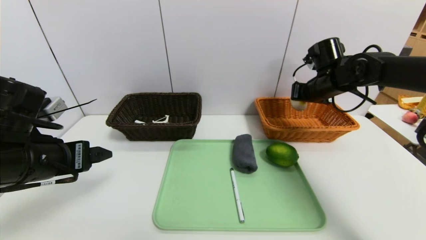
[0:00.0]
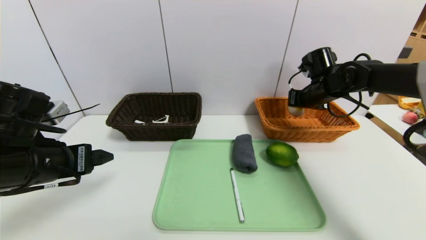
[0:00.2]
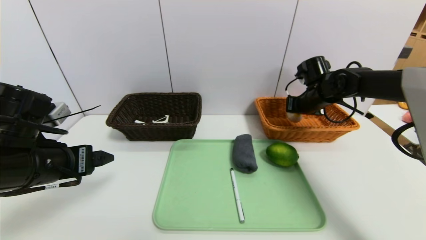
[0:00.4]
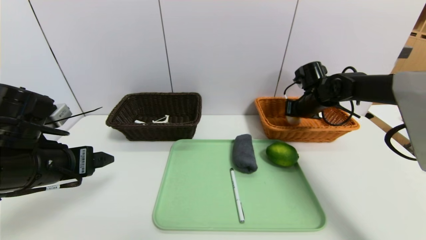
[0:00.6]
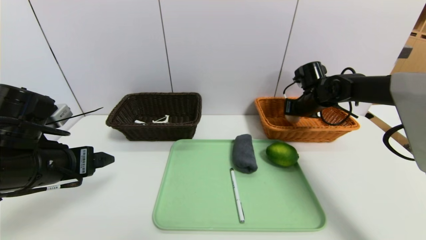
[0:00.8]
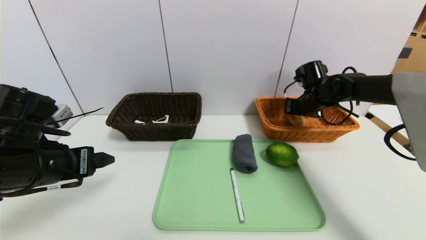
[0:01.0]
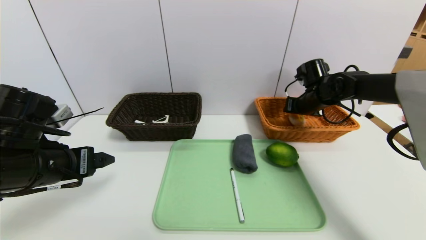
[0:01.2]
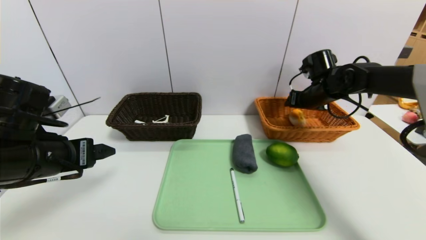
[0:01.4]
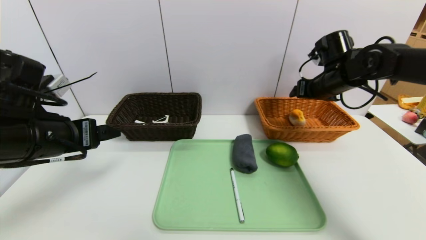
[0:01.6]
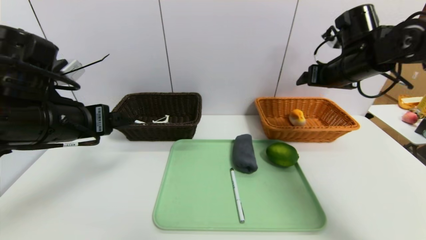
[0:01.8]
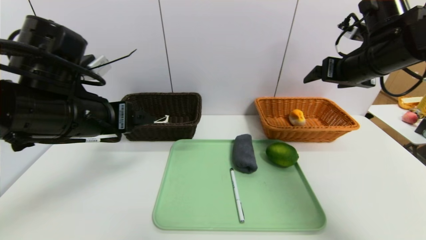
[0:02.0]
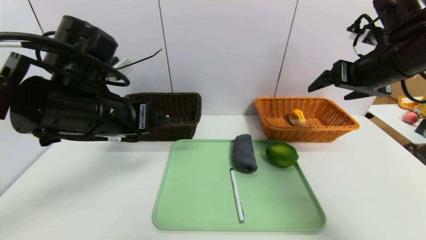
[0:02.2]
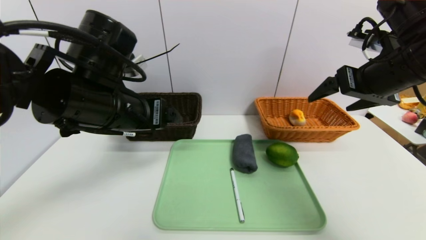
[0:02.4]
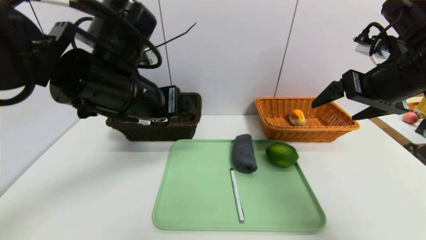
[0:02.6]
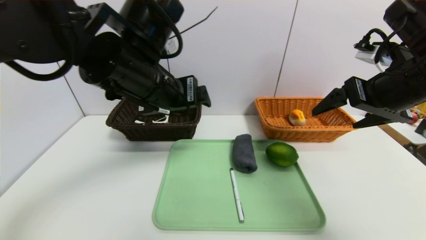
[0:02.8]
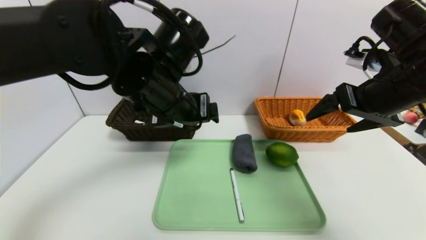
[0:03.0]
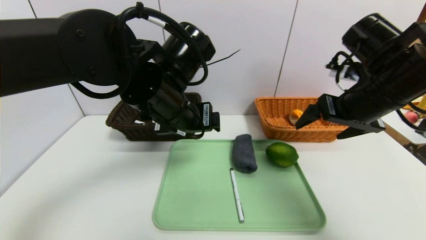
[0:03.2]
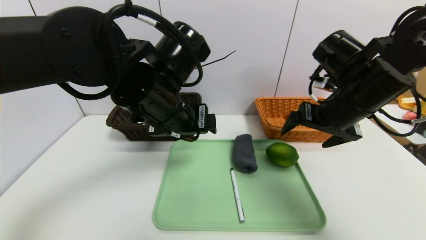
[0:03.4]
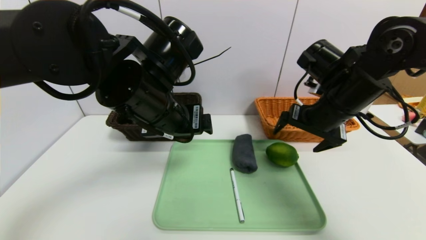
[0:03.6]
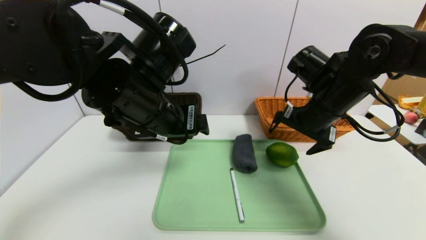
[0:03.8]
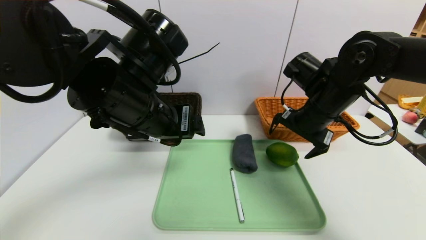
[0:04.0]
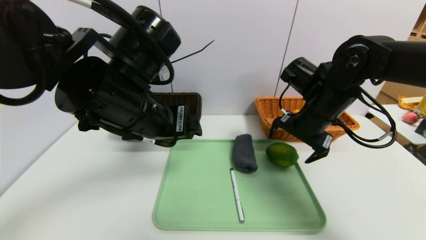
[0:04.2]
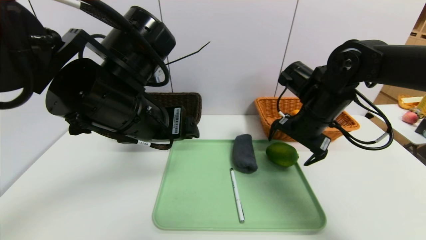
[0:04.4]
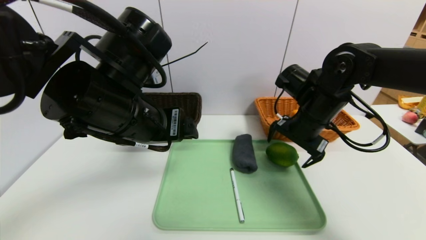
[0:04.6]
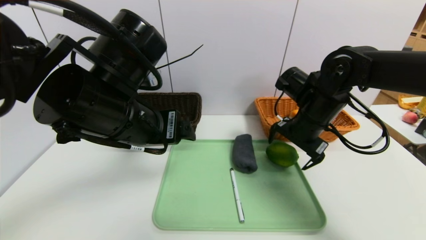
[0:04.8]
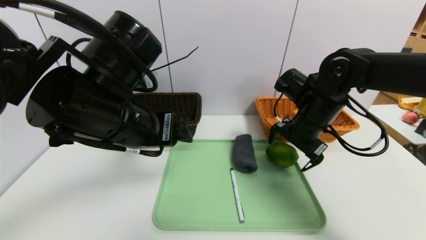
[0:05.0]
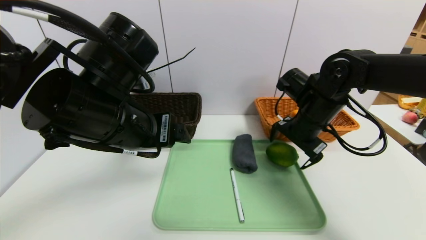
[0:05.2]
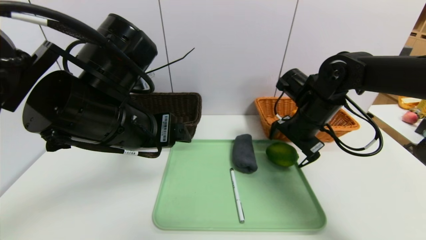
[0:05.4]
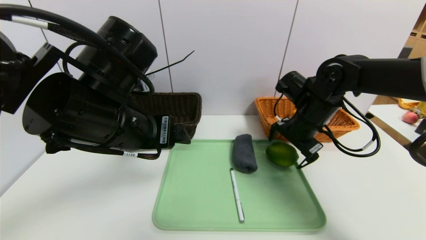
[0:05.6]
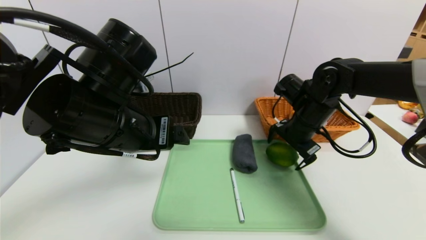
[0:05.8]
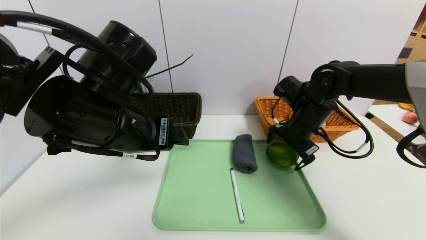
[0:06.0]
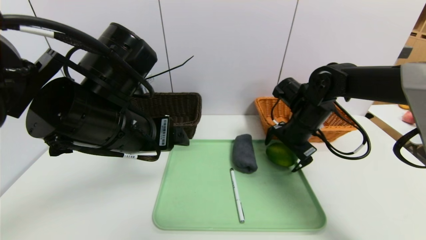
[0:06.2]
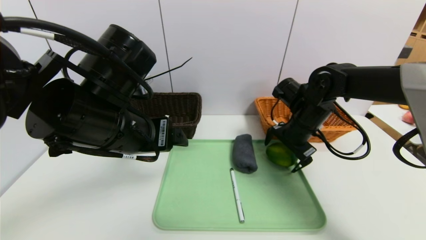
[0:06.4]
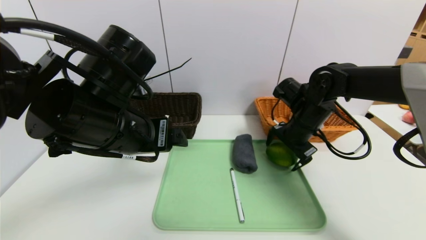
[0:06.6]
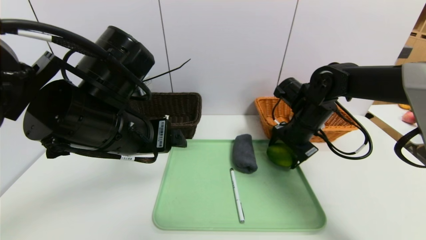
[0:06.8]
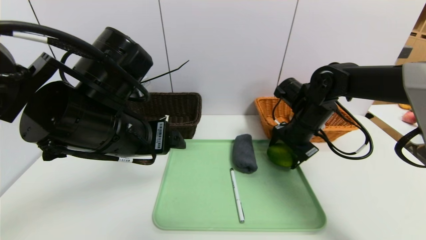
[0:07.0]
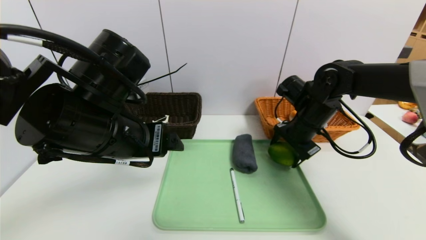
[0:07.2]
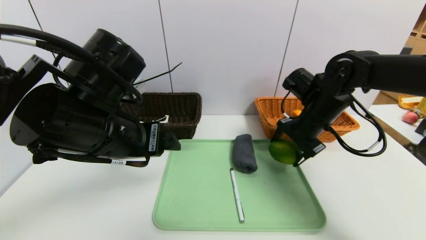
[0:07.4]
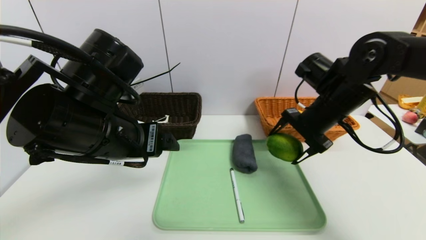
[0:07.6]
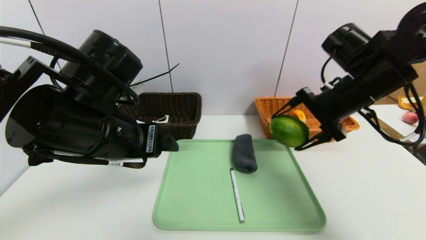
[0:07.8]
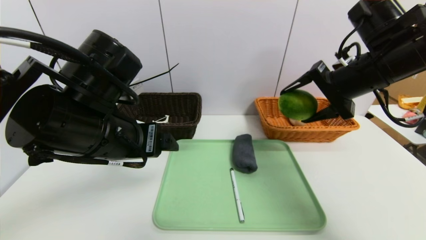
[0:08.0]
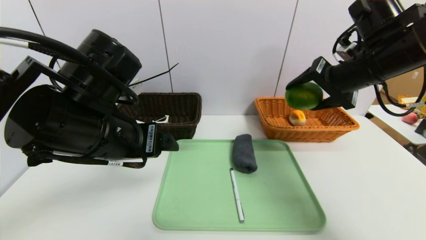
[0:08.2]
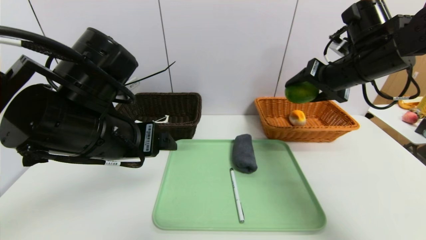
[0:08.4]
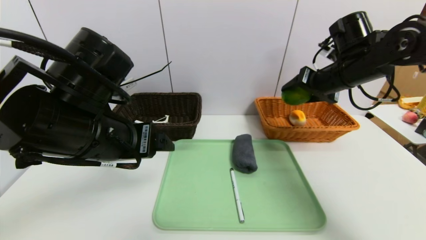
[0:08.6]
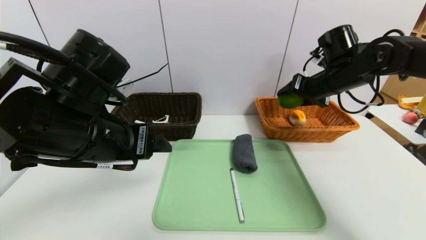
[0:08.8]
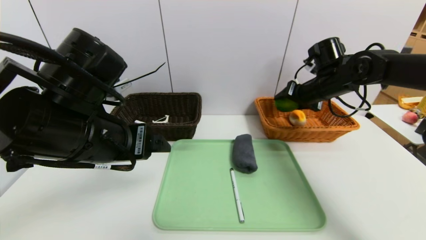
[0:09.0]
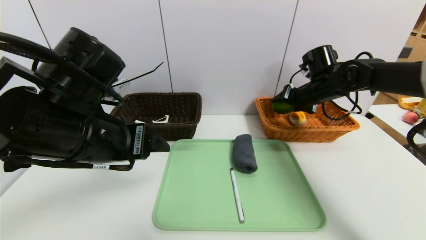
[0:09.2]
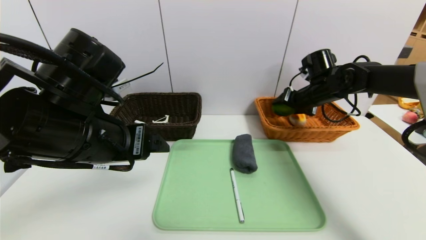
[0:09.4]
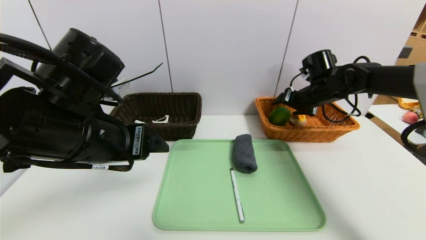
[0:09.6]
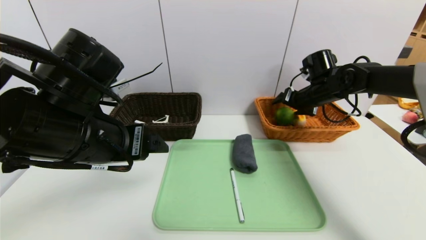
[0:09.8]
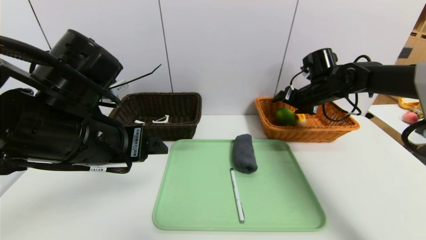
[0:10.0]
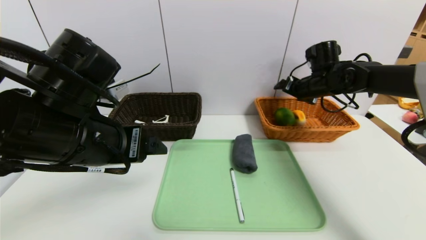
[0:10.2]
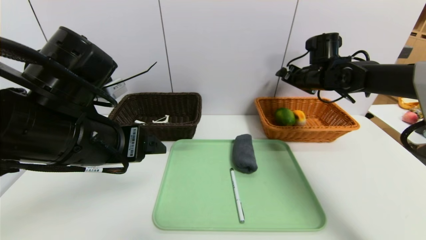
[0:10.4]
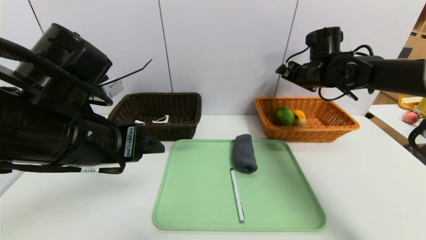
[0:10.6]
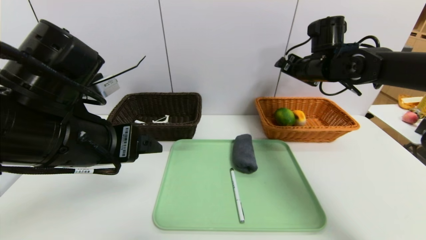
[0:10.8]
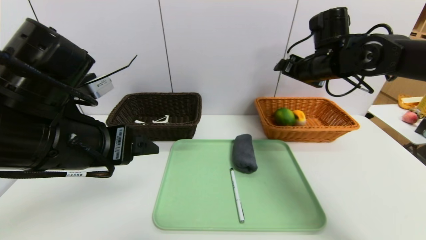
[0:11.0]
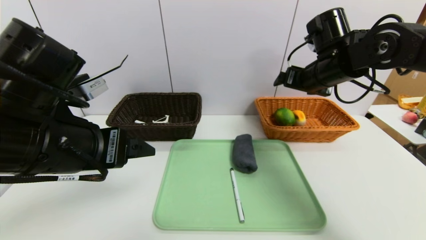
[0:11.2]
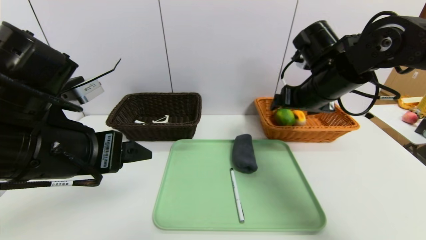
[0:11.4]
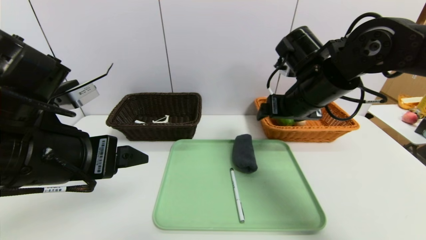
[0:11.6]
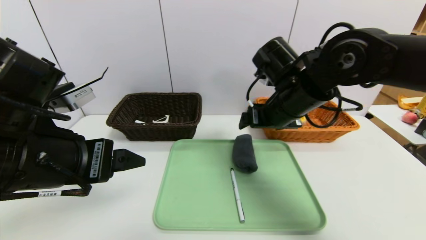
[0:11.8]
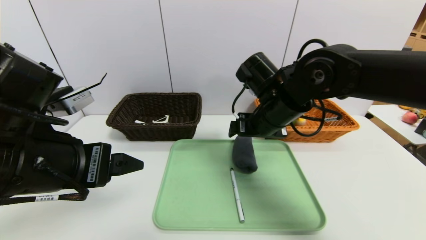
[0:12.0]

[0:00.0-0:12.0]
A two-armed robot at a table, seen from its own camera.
Task of the whole recording: place the food in the right basket with the right gripper, and place the non food items in the left basket with the left gripper.
Step, 0:02.0 to 0:10.4: Grasp the green lemon and put it in the right basket.
0:00.0 to 0:01.6: The right gripper goes downward and returns, approximately 5 cm each way, and opens its fingers.
0:01.6 to 0:03.0: The left gripper moves to the right, about 15 cm, while the right gripper travels backward by some 15 cm.
0:03.0 to 0:04.4: The right gripper goes about 15 cm downward, forward and to the left. Meanwhile the left gripper moves about 5 cm.
0:04.4 to 0:06.0: The right gripper shifts by roughly 5 cm.
0:06.0 to 0:07.6: The right gripper moves upward, about 5 cm.
0:07.6 to 0:09.0: The right gripper travels forward by some 10 cm.
0:10.4 to 0:12.0: The right gripper is displaced to the left and backward by approximately 20 cm.

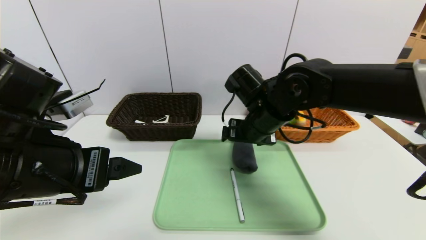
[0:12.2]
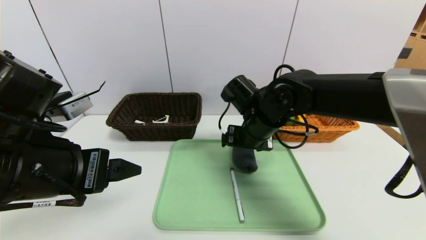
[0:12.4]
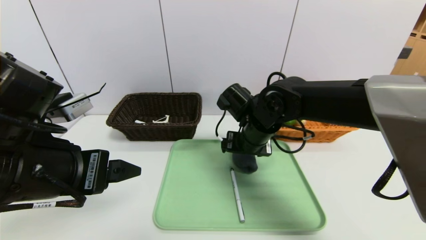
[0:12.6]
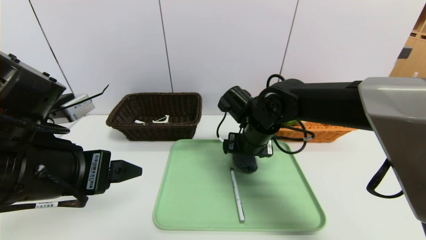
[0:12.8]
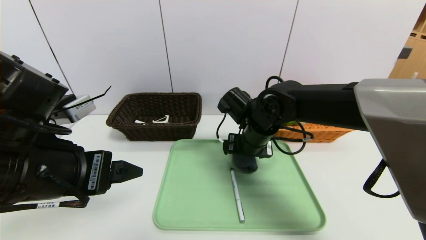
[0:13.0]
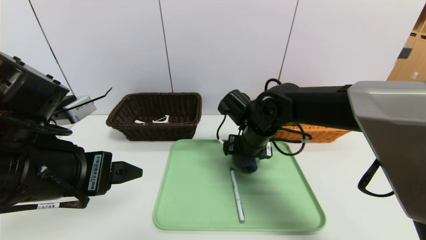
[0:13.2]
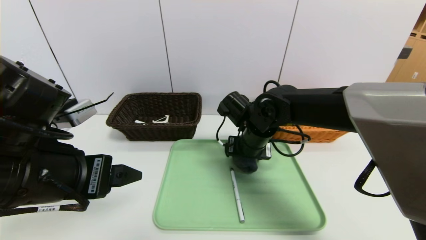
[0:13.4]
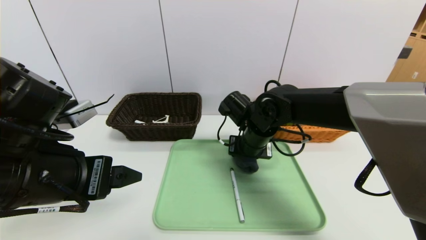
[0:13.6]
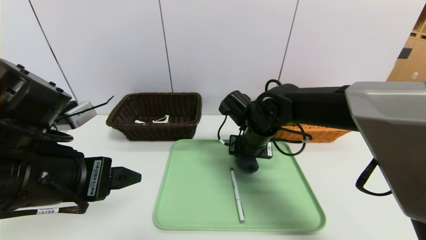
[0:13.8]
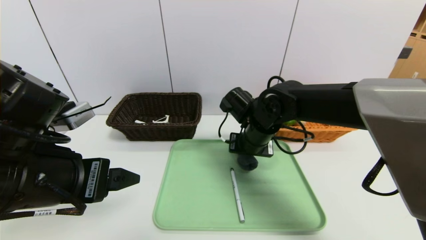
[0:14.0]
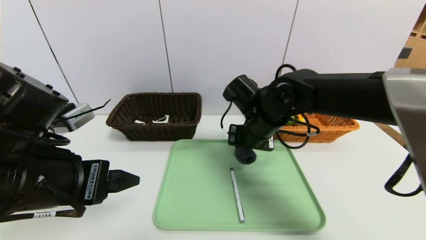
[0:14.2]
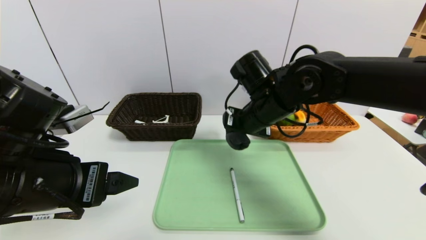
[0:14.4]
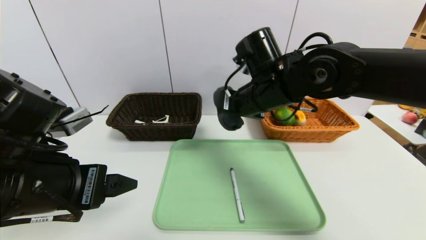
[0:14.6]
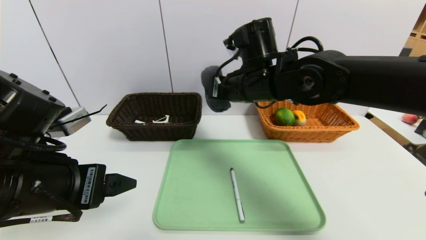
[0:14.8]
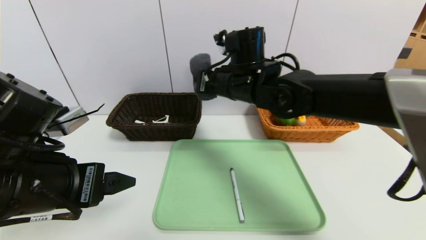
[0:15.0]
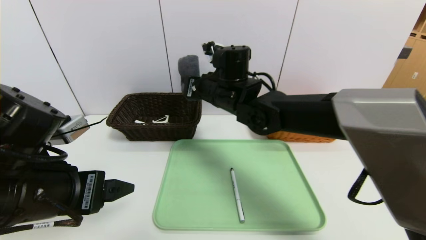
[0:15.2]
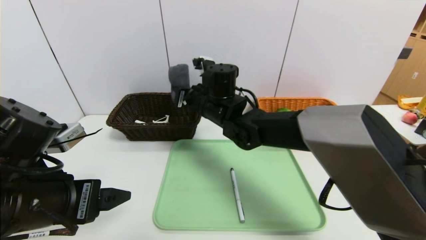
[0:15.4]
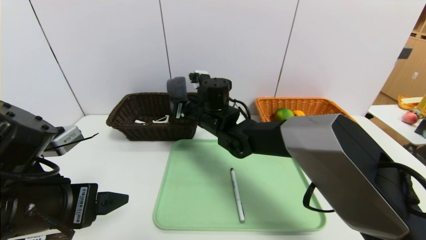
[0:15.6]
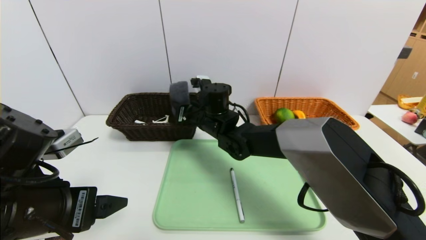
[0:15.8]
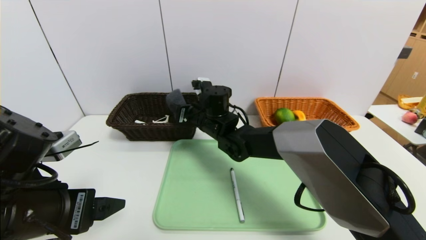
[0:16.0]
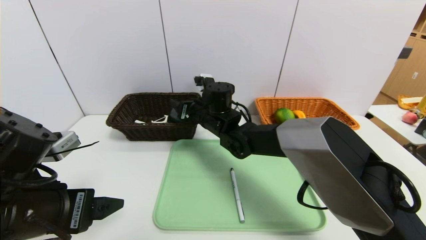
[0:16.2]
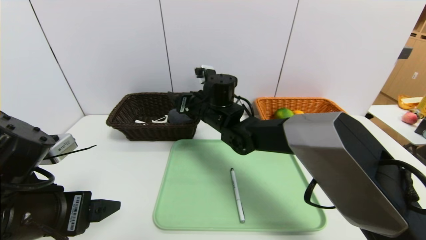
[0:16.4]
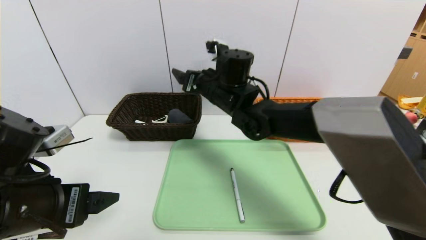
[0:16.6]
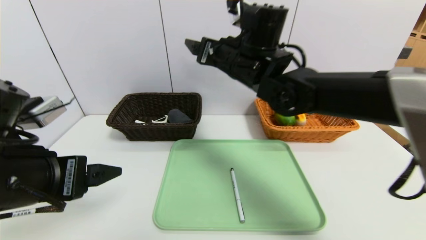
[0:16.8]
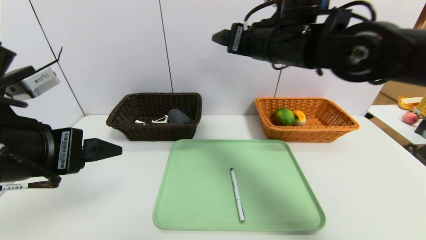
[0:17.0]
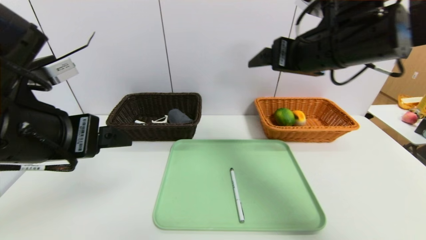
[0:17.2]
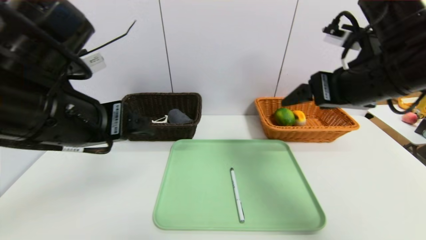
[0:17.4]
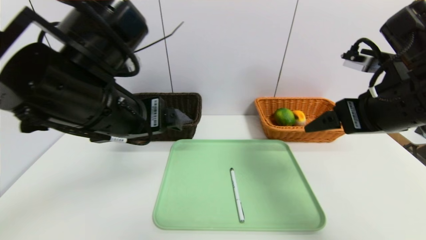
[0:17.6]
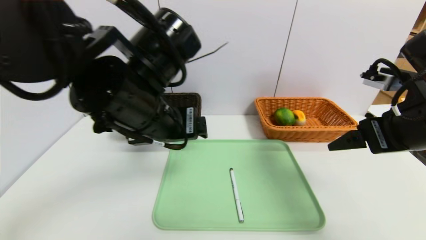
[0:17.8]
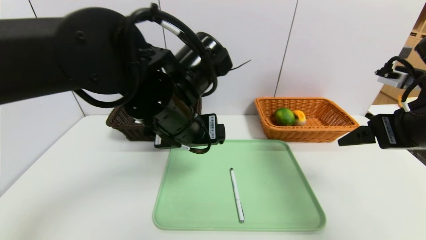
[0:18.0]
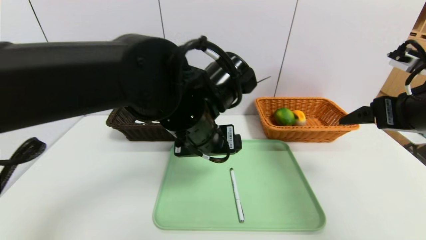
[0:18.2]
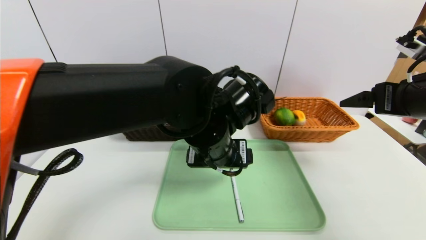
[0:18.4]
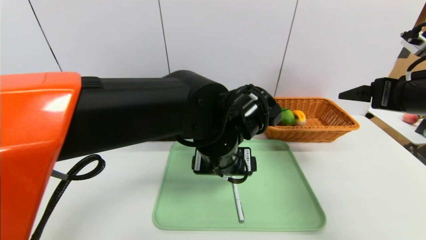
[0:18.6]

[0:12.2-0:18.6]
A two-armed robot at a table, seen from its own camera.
Task of the whole recording: place the food in the right basket with the right gripper, and place the non food items in the left basket with the left gripper.
Step, 0:12.2 to 0:16.4: Grasp the grey towel and put it in the right basket.
0:12.2 to 0:13.8: The right gripper shifts roughly 5 cm downward, and closes.
0:13.8 to 0:15.4: The right gripper moves to the left, about 10 cm.
0:15.4 to 0:17.0: The right gripper is displaced upward and to the right by roughly 20 cm, and opens up; the left gripper travels upward by approximately 5 cm.
0:17.0 to 0:18.6: The right gripper goes roughly 20 cm to the right and backward; the left gripper travels to the right and forward by about 25 cm.
